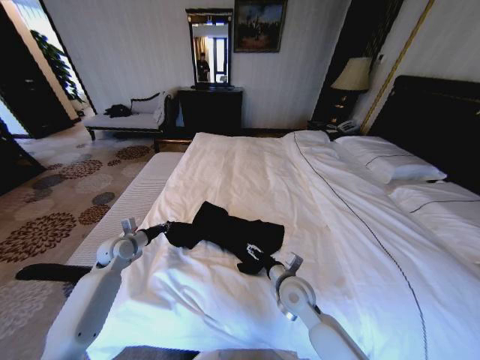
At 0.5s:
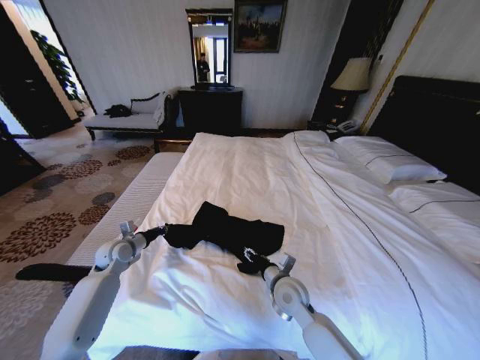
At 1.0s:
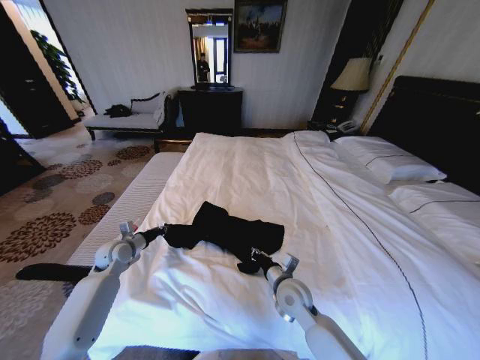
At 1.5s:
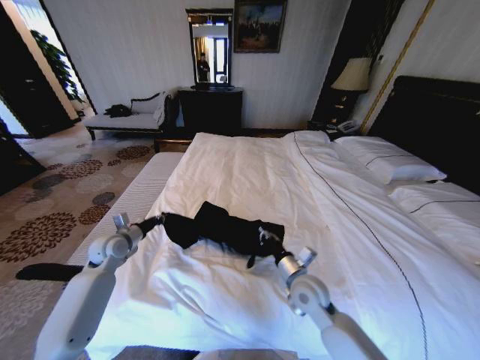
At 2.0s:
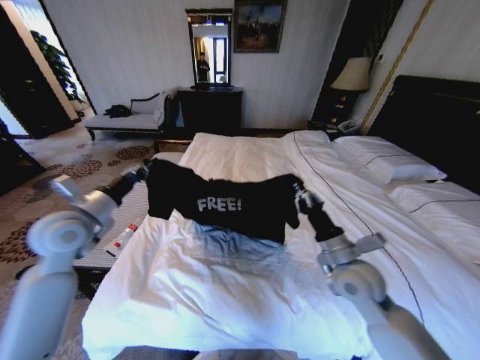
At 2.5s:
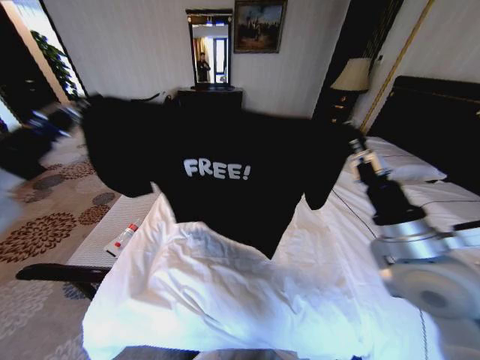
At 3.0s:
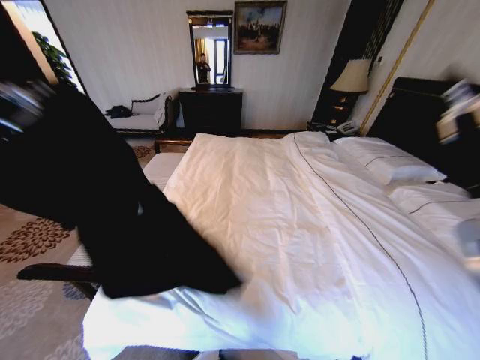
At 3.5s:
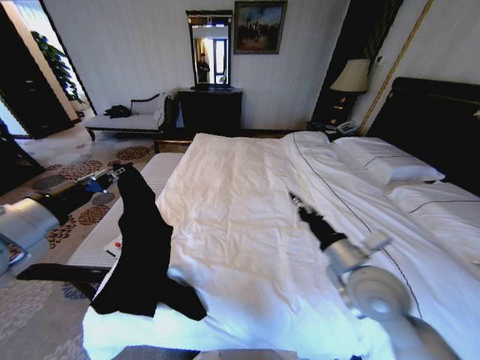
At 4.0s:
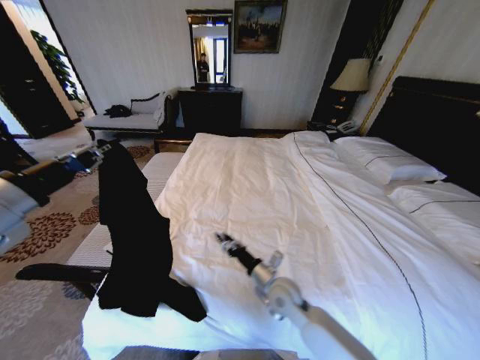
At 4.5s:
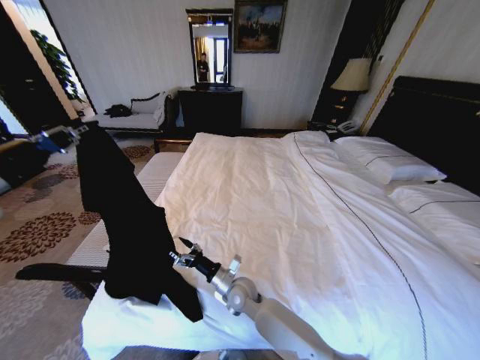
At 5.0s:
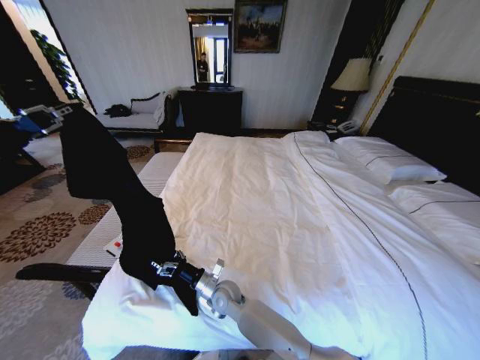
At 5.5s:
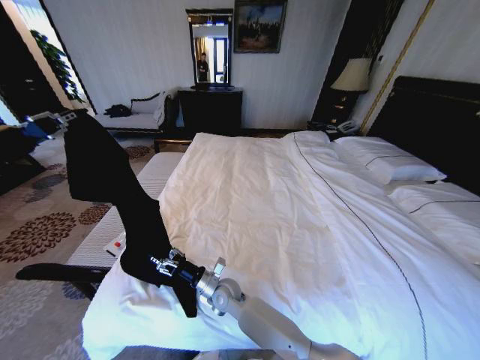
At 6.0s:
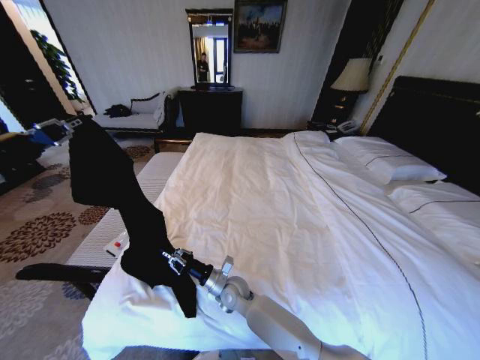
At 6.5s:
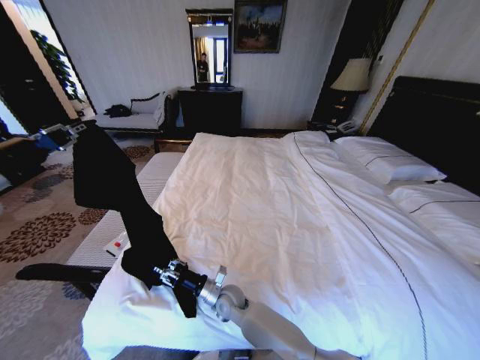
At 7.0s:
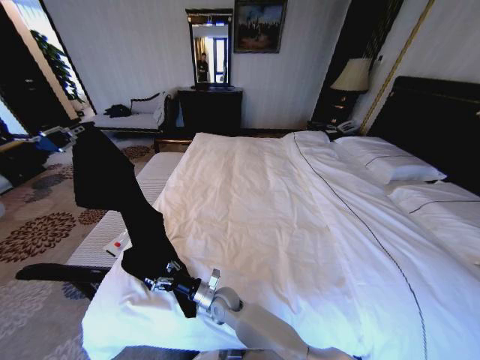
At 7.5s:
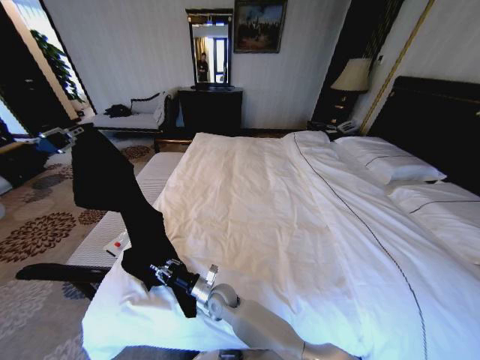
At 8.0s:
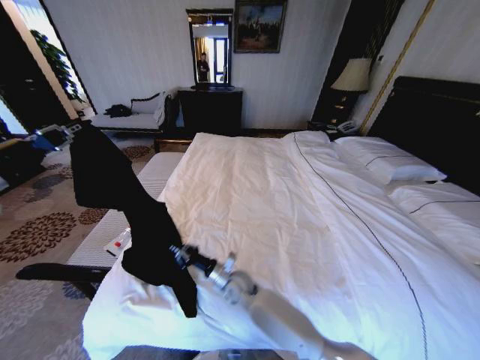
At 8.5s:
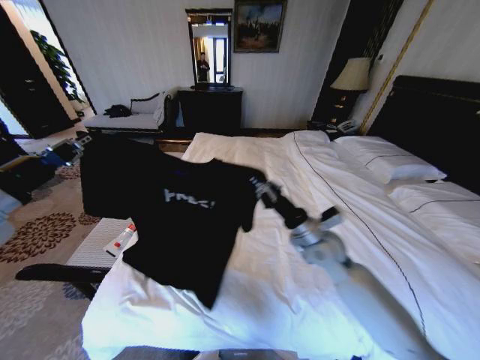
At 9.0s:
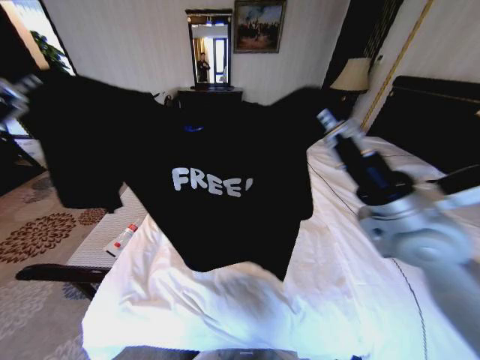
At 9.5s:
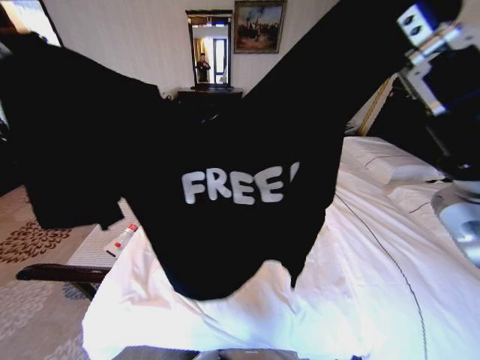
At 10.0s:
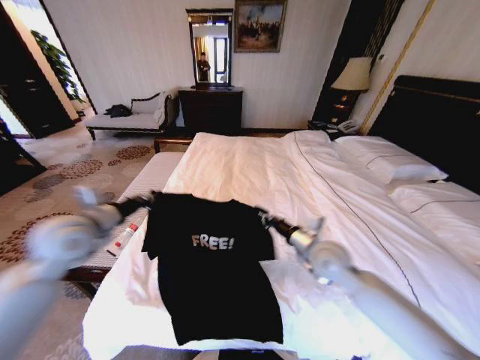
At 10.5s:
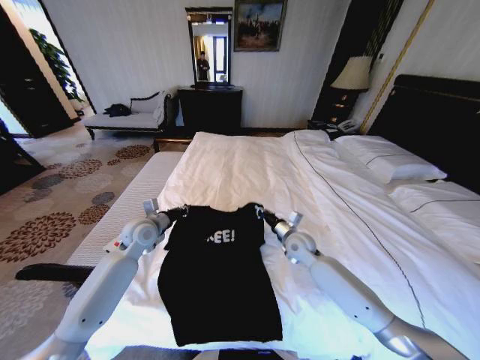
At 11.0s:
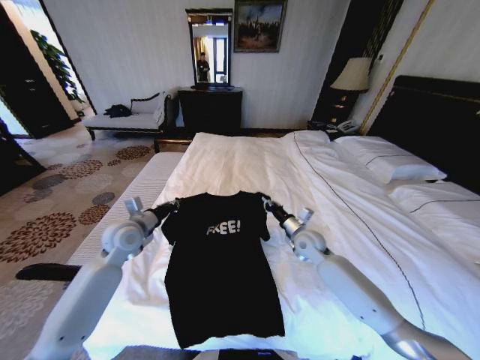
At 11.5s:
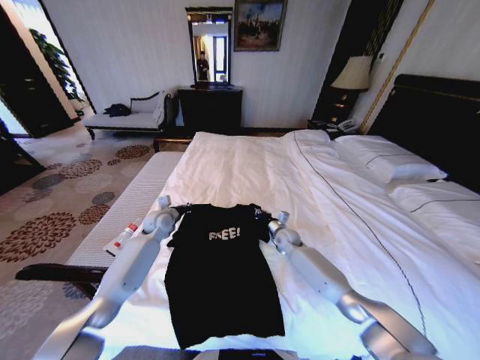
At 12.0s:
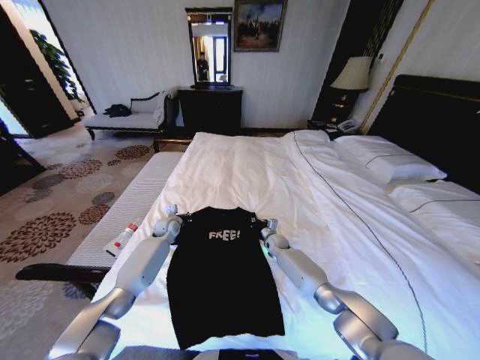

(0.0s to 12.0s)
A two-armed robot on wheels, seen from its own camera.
Task of the whole recording: Fold the clothes on the bed.
0.0s - 2.0s: The left gripper moves upward, roughly 20 cm. Meanwhile the right gripper heads upward and to the right, covering roughly 15 cm, and closes up.
2.0s - 4.0s: The left gripper goes approximately 15 cm upward and backward. Meanwhile the right gripper travels to the left and downward by about 20 cm, and opens up.
4.0s - 6.0s: The left gripper shifts by about 5 cm; the right gripper is displaced to the left and downward by about 15 cm, and opens, then closes again.
6.0s - 8.0s: The right gripper opens, then closes again.
8.0s - 10.0s: The left gripper heads downward, to the right and forward, covering roughly 20 cm, while the right gripper goes some 25 cm to the right and upward.
10.0s - 12.0s: Both grippers travel together downward and forward, roughly 30 cm.

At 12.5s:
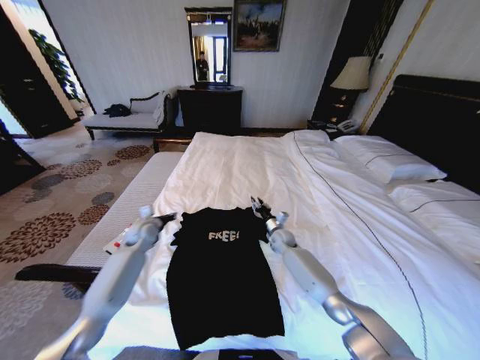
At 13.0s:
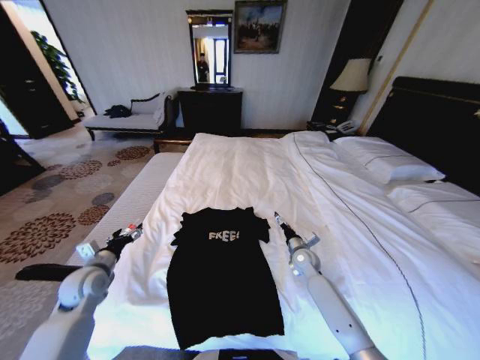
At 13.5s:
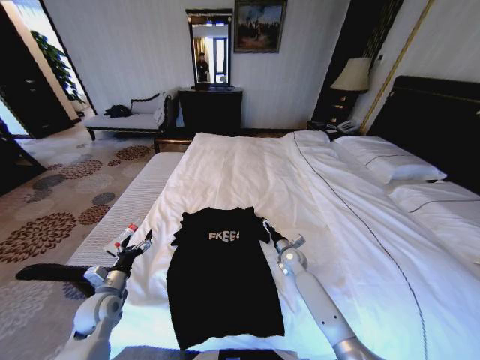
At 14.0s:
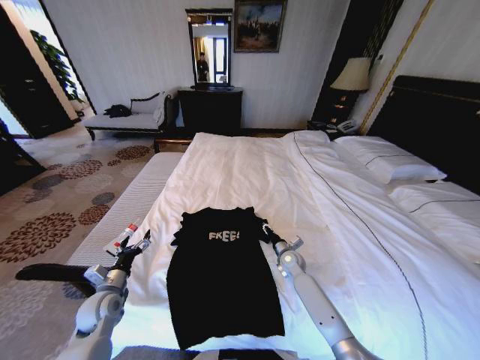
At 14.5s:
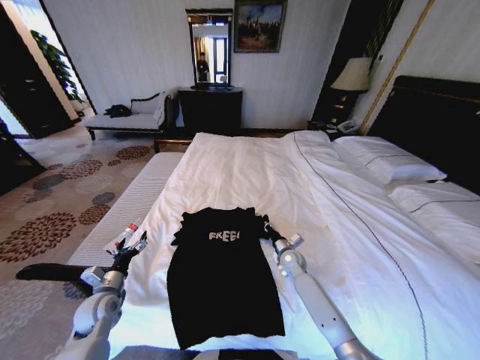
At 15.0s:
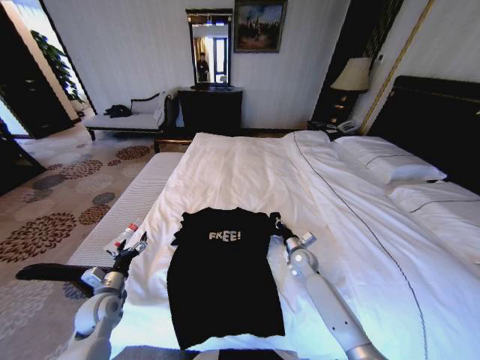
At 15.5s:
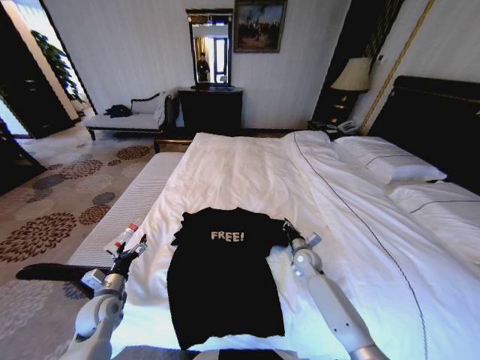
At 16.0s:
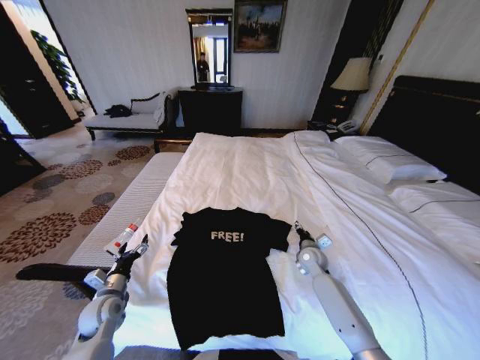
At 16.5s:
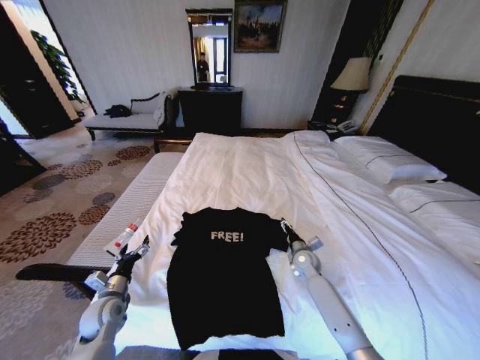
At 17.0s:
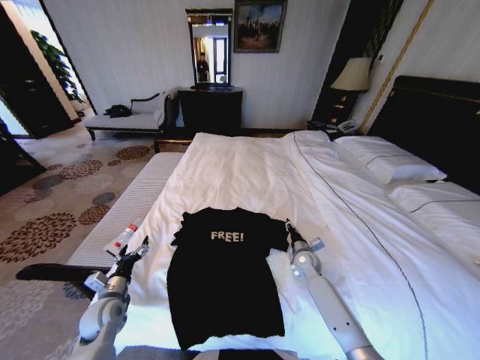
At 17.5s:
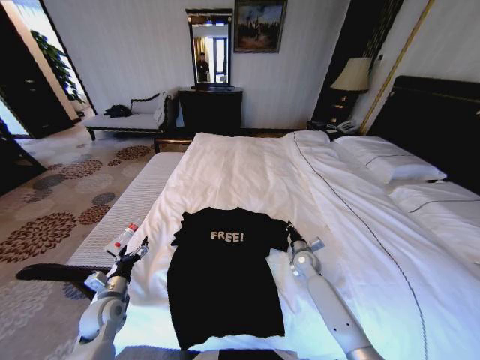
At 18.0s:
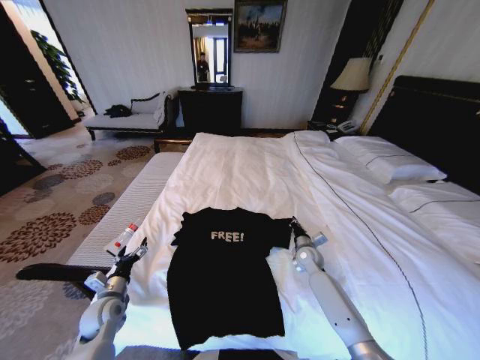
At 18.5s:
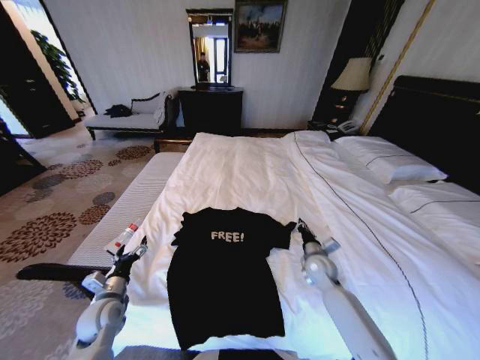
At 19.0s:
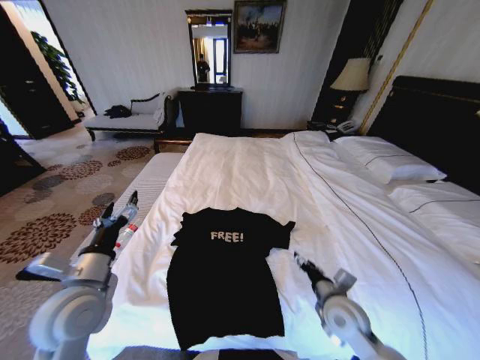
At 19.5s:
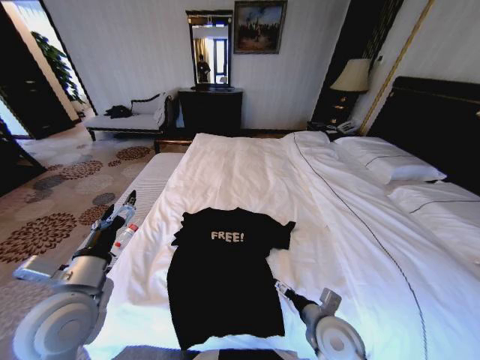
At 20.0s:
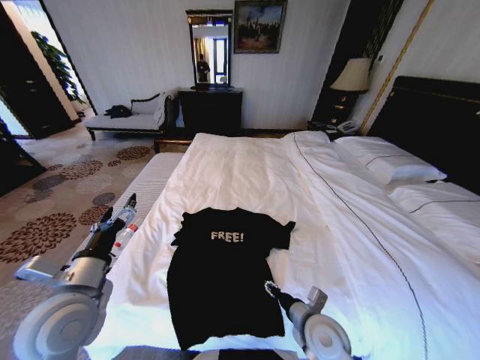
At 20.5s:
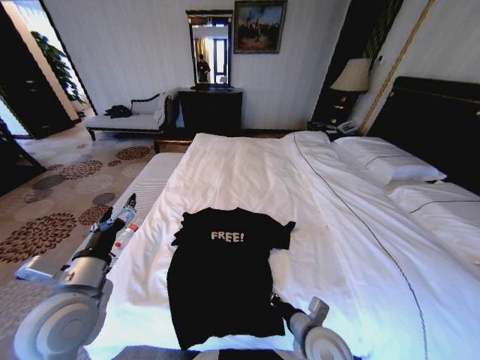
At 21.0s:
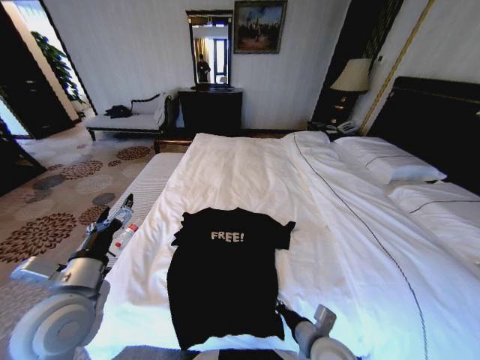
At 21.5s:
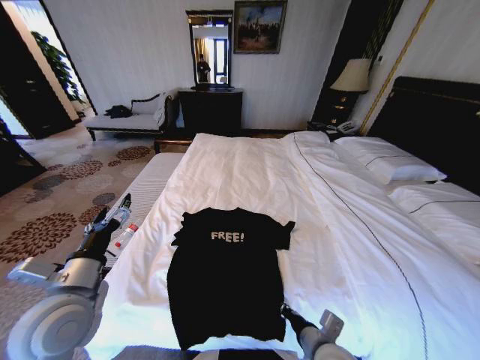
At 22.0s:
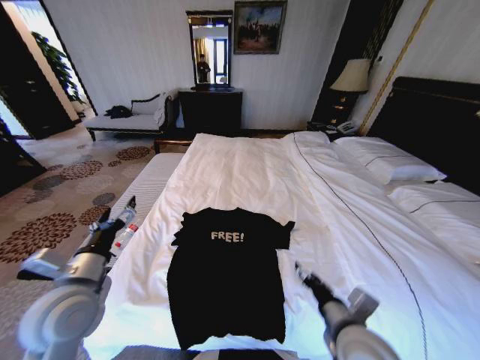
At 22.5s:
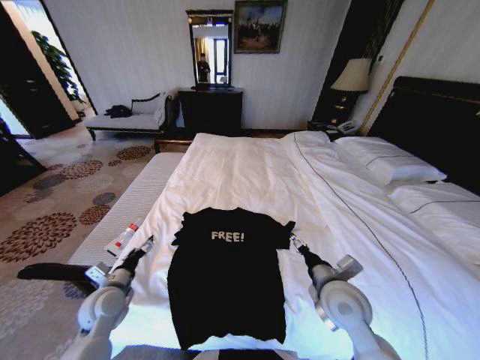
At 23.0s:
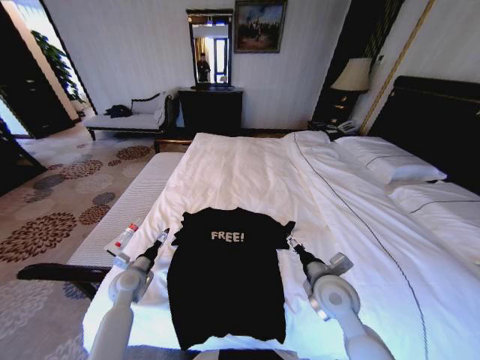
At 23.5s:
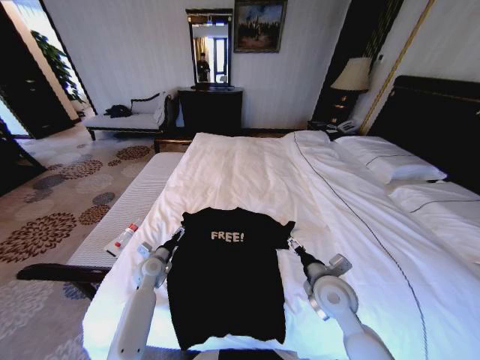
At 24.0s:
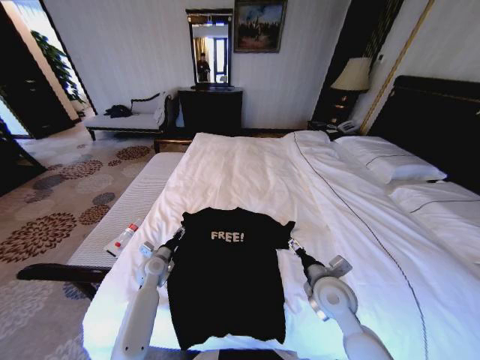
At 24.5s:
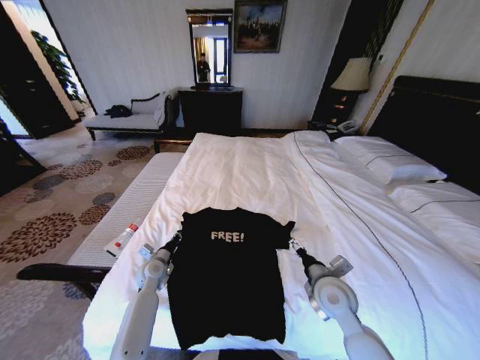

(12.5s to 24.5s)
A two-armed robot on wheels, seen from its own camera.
Task of the whole recording: Fold the clothes on the bed.
12.5s - 14.5s: The left gripper heads backward, covering roughly 20 cm, and opens up. The right gripper travels backward by some 10 cm, and closes.
14.5s - 16.5s: The right gripper opens up.
16.5s - 18.5s: The right gripper ends up about 5 cm from where it was, and closes its fingers.
18.5s - 20.5s: The left gripper travels upward by about 20 cm. Meanwhile the right gripper heads backward and to the left, covering approximately 25 cm, and opens and closes again.
20.5s - 22.5s: The right gripper is displaced upward and forward by approximately 10 cm, and opens its fingers; the left gripper moves downward, about 15 cm.
22.5s - 24.5s: The left gripper is displaced forward, downward and to the right by about 15 cm, and closes. Meanwhile the right gripper ends up about 5 cm from where it was.

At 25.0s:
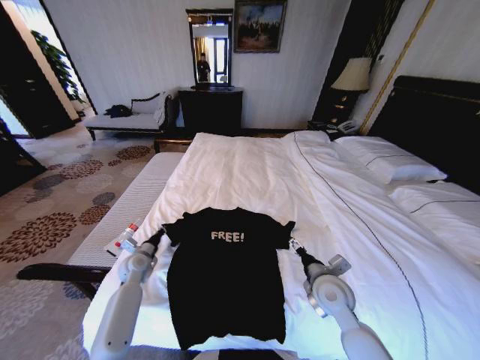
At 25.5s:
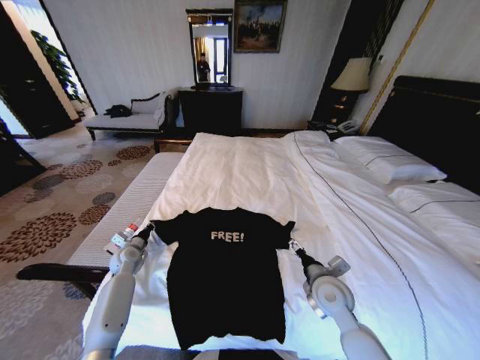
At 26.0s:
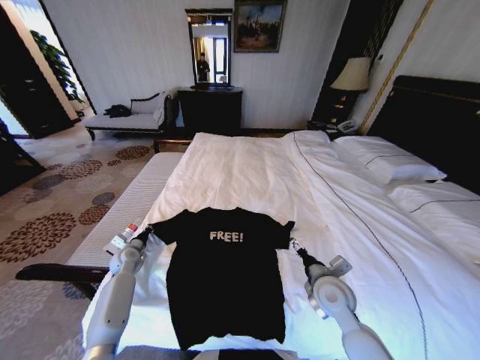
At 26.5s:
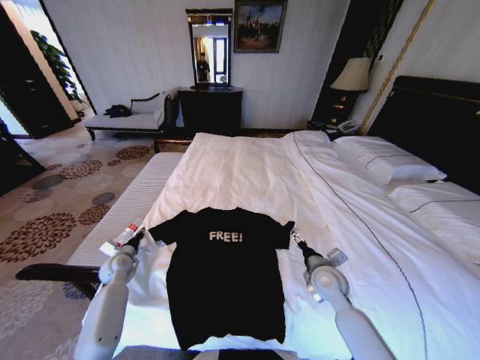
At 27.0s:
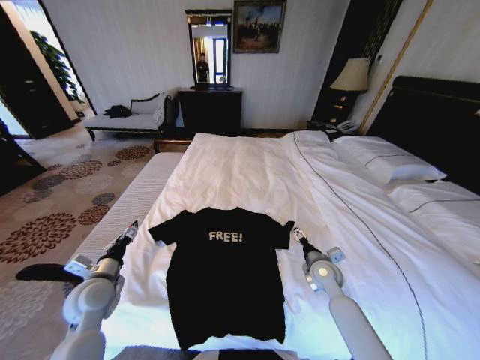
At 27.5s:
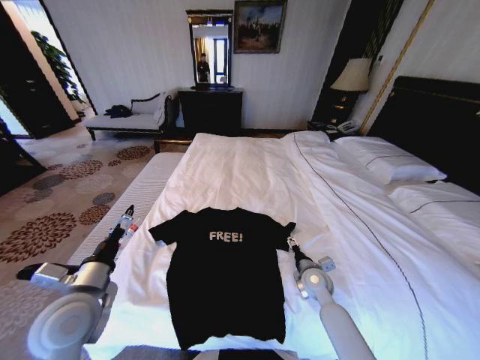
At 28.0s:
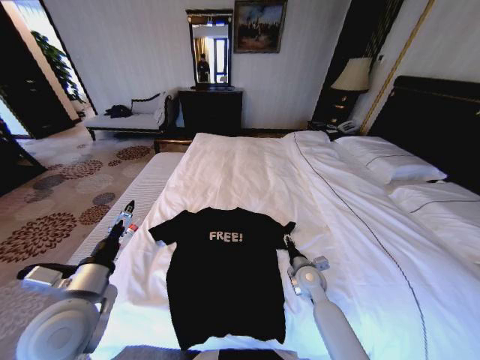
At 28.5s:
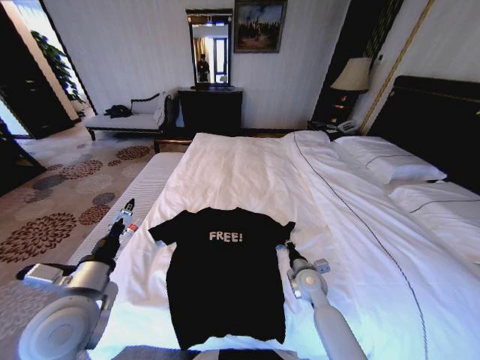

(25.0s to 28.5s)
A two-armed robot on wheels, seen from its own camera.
Task of the whole recording: Fold the clothes on the bed.
25.0s - 27.0s: The right gripper shifts some 10 cm forward and downward. The left gripper moves backward and upward, roughly 15 cm, and opens its fingers.
27.0s - 28.5s: The left gripper moves upward, backward and to the right, roughly 15 cm. The right gripper shifts by about 5 cm, and closes its fingers.
